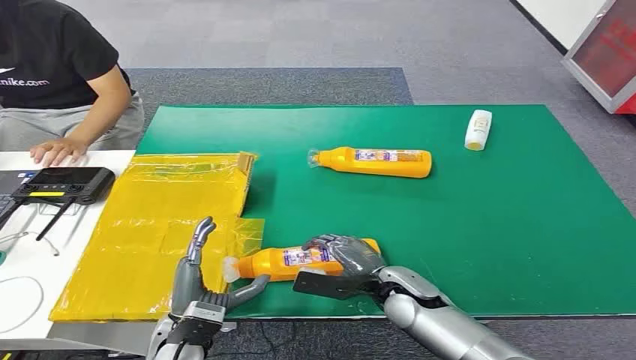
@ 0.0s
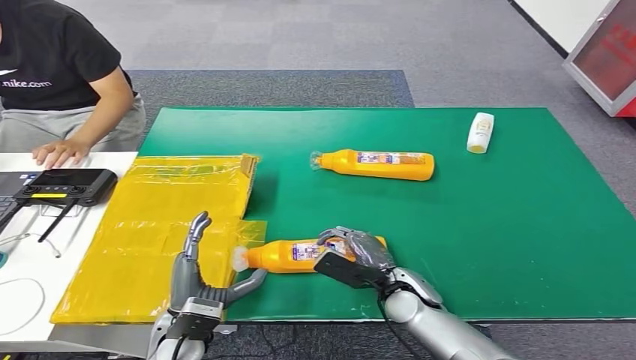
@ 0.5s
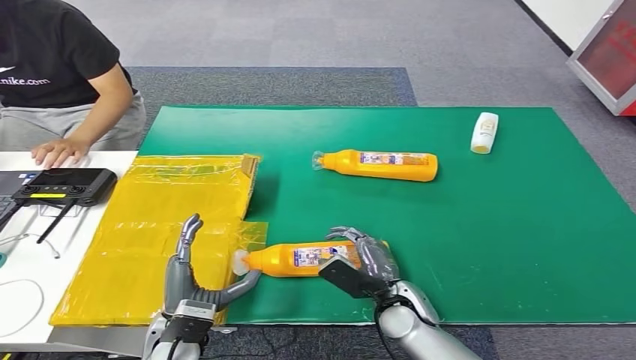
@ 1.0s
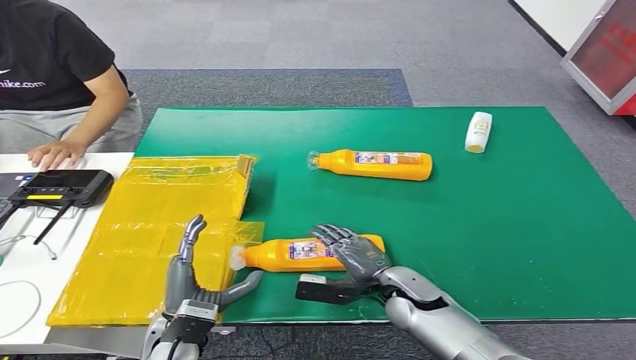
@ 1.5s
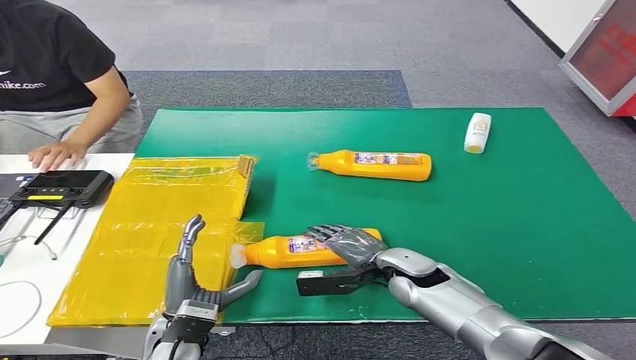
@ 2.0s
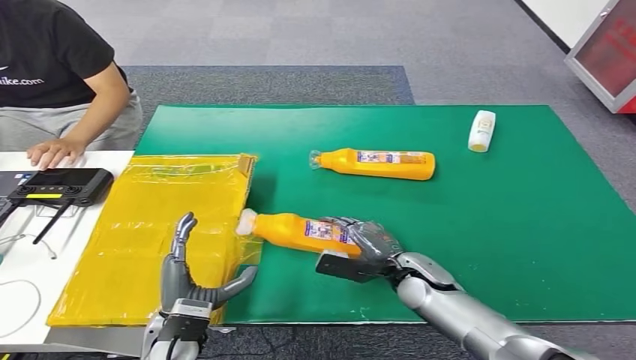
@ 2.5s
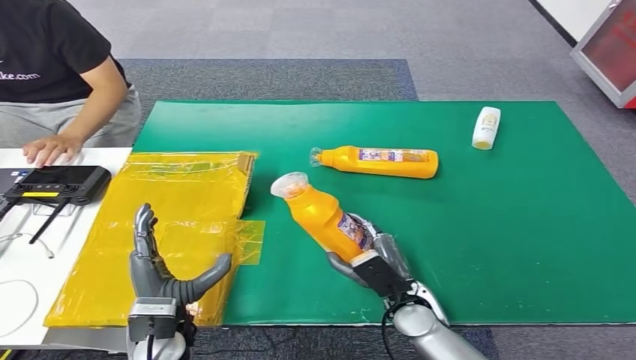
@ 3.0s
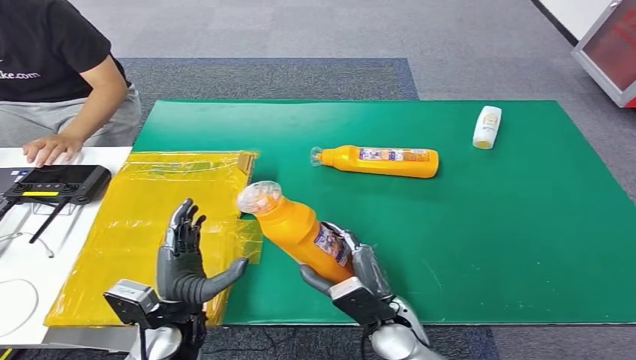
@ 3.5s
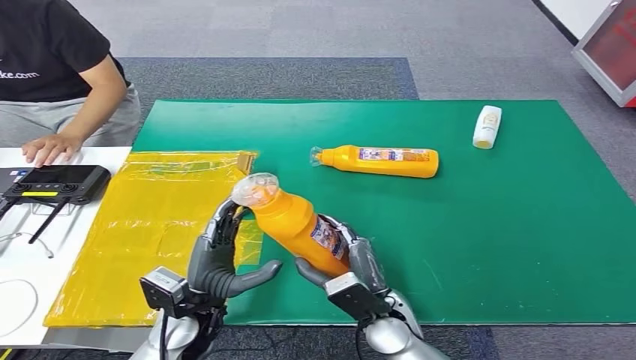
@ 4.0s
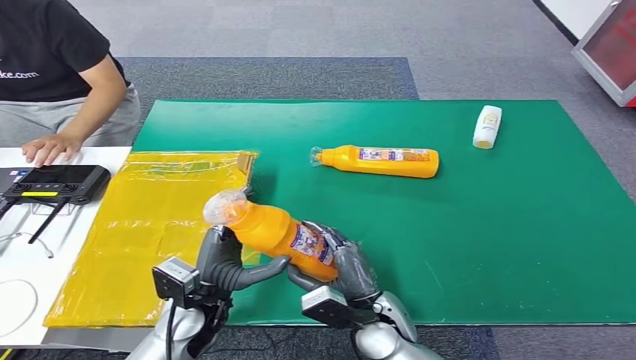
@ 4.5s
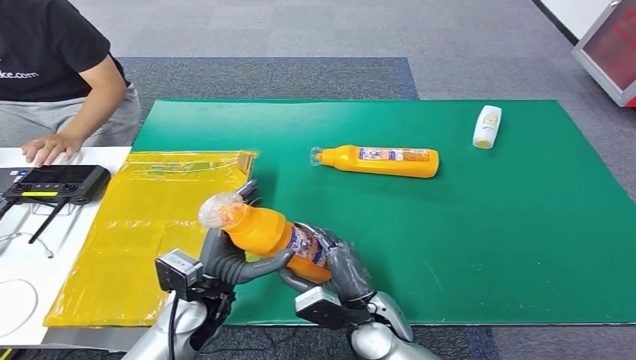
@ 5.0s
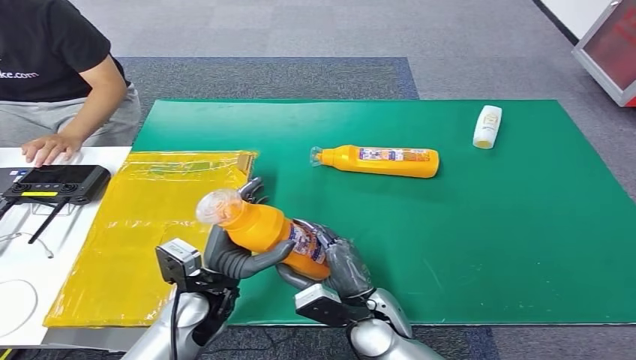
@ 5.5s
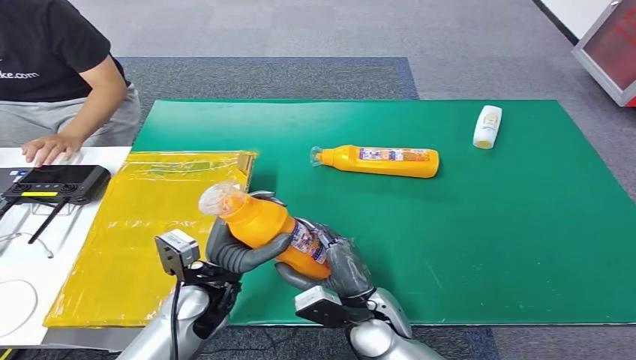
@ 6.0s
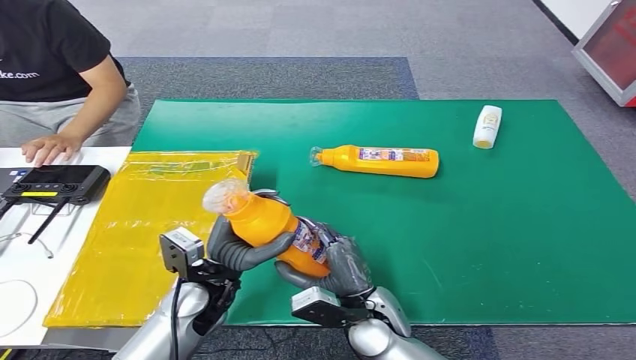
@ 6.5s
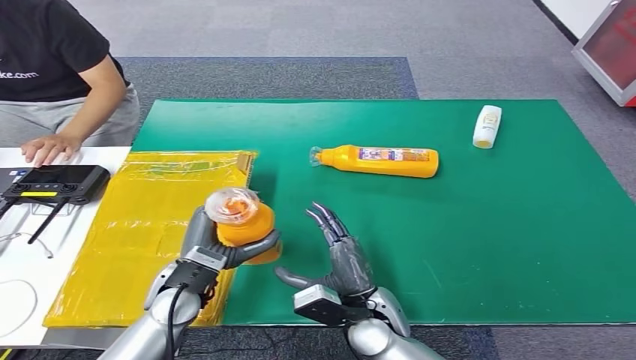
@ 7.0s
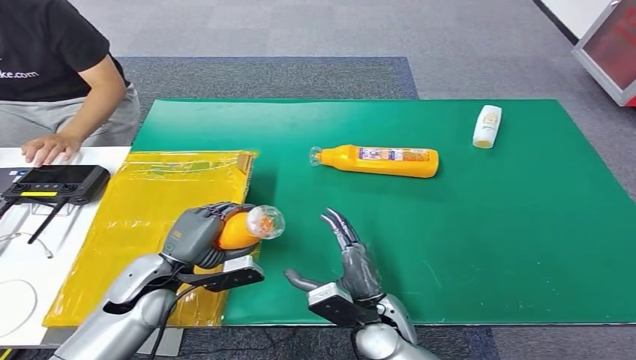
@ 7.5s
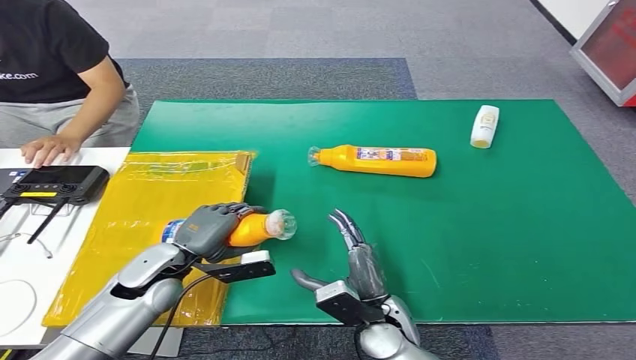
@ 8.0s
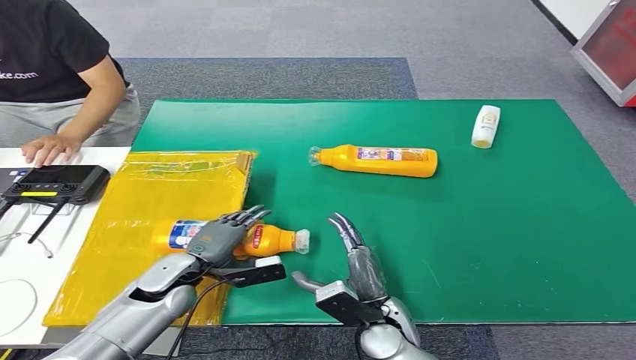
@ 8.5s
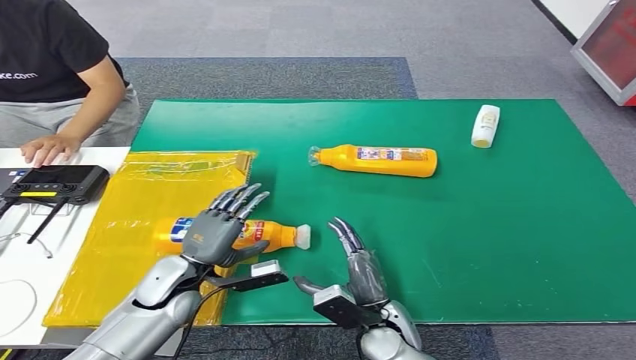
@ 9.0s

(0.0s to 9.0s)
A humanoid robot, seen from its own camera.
Step, 0.0s - 3.0s: Pick up the bottle from the table.
Step, 4.0s - 9.0s: Turn the bottle to the front side.

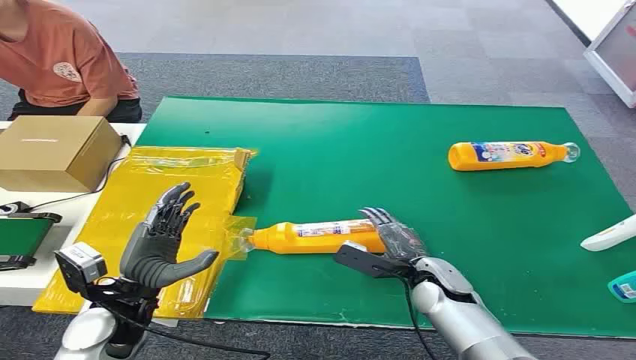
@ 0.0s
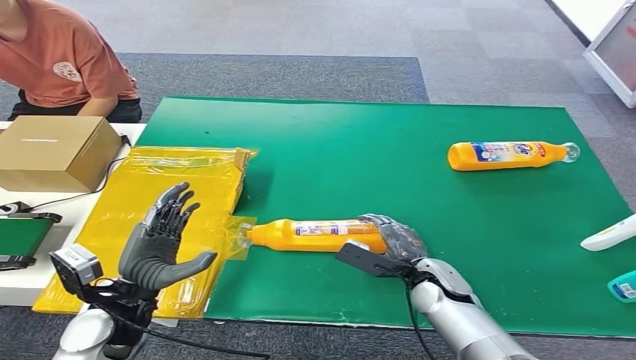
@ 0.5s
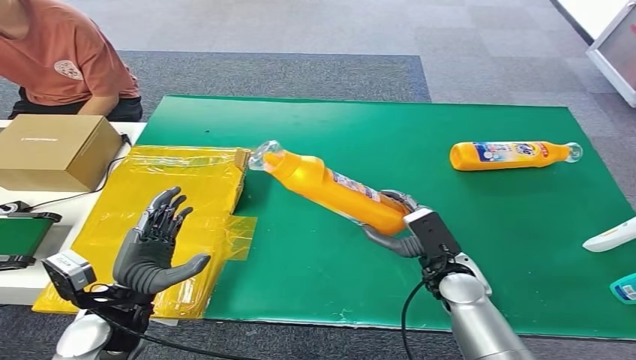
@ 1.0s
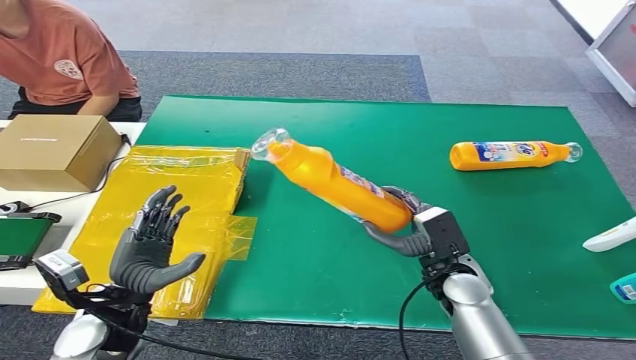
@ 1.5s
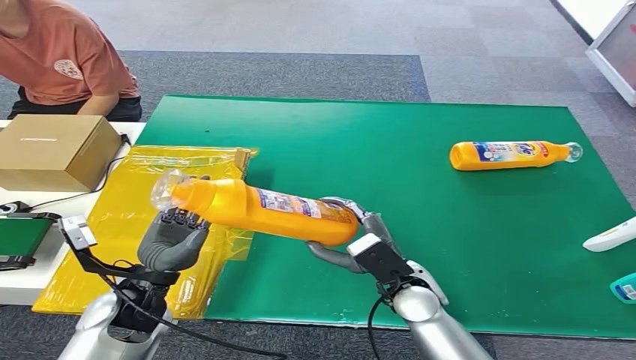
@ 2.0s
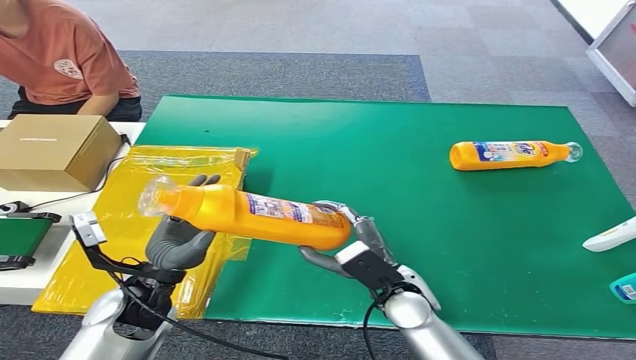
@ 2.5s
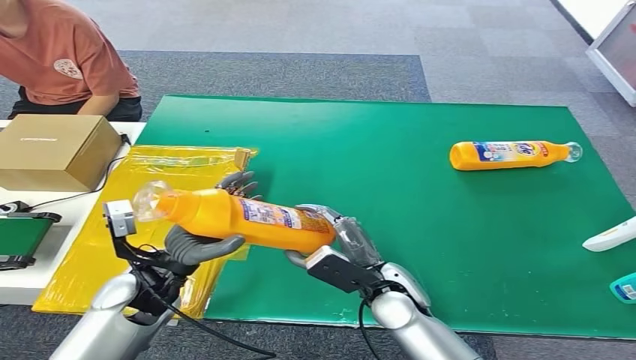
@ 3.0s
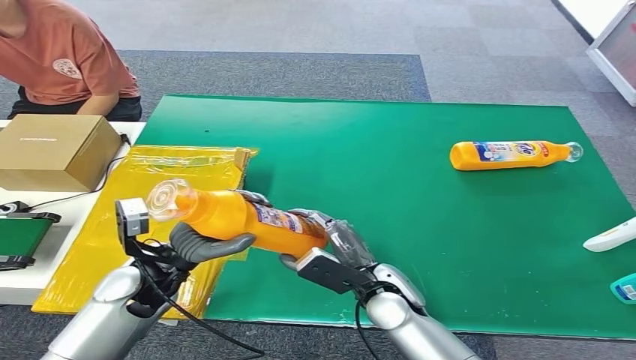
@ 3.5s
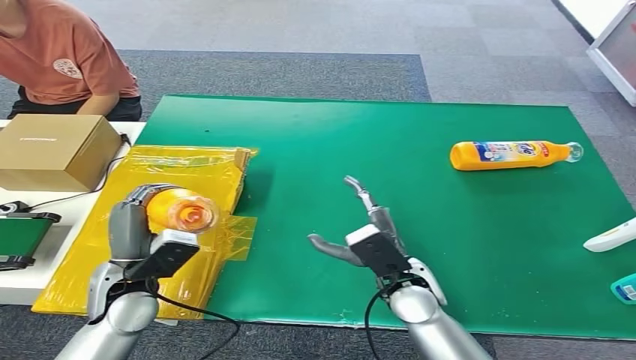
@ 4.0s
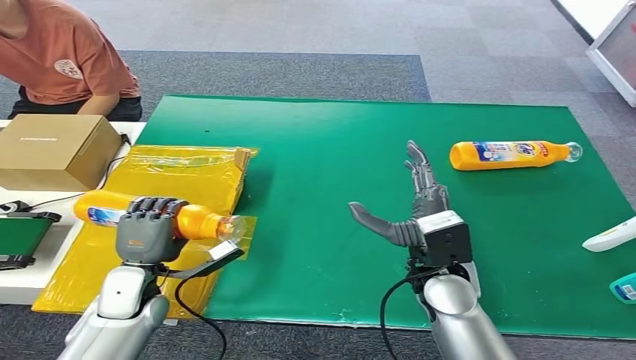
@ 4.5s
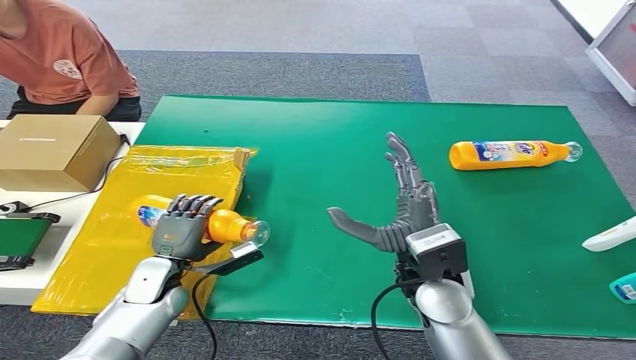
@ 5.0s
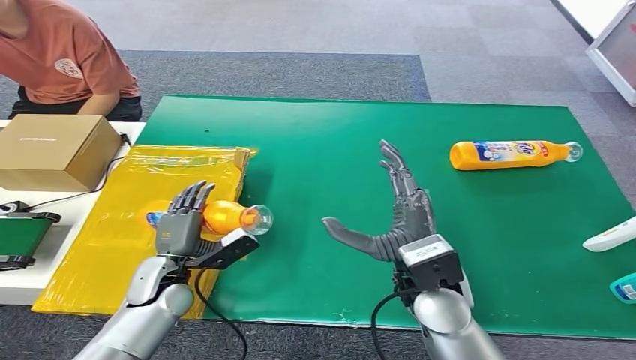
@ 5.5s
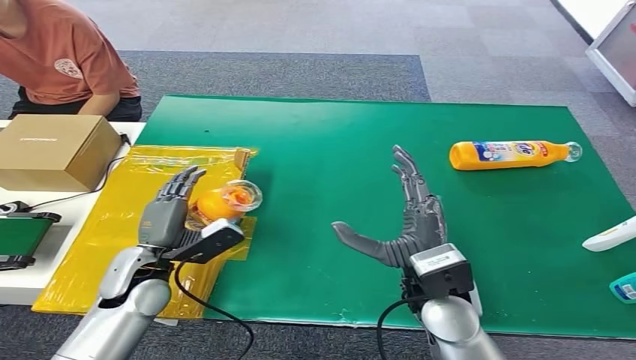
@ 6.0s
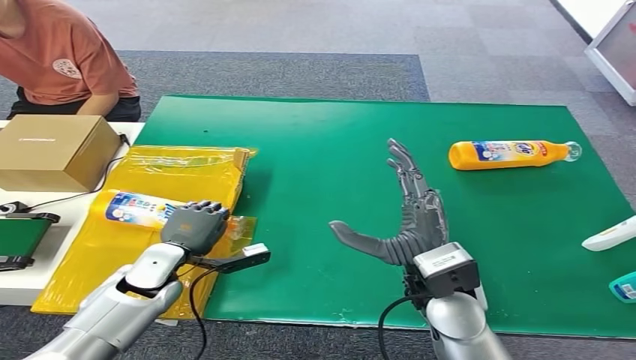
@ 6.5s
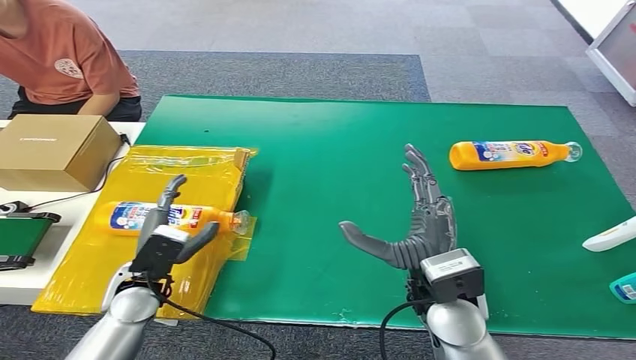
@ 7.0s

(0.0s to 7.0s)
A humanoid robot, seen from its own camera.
Step, 0.0s - 1.0s: Pick up the bottle from the table.
Step, 1.5s - 7.0s: Turn the bottle to the front side.
3.5s - 5.0s: The left hand is displaced downward by roughly 10 cm. The right hand goes about 10 cm upward.
5.0s - 7.0s: The left hand shifts roughly 5 cm upward.
